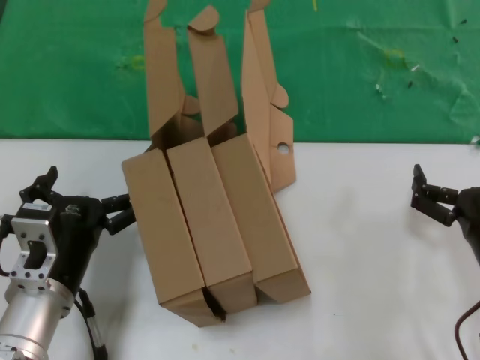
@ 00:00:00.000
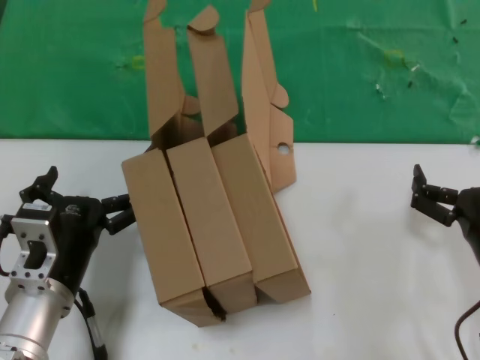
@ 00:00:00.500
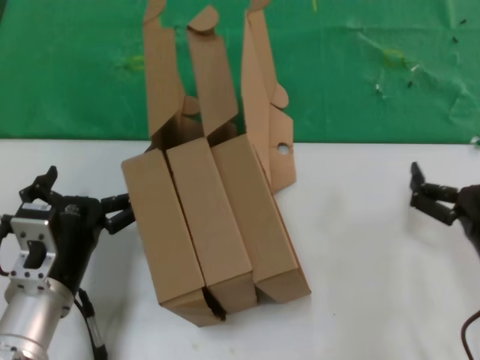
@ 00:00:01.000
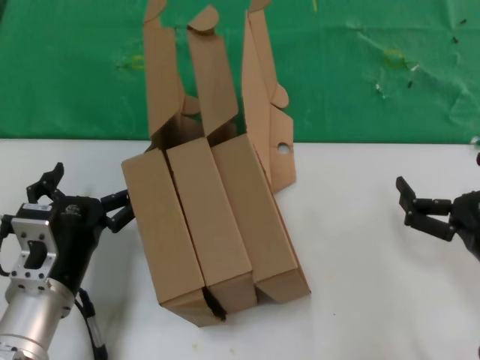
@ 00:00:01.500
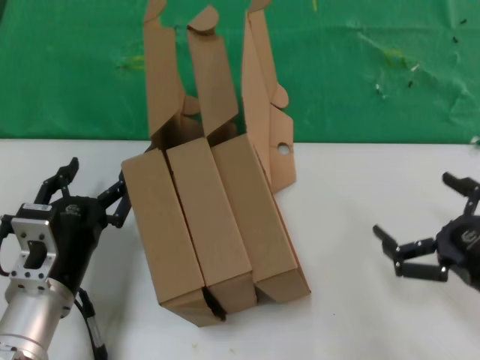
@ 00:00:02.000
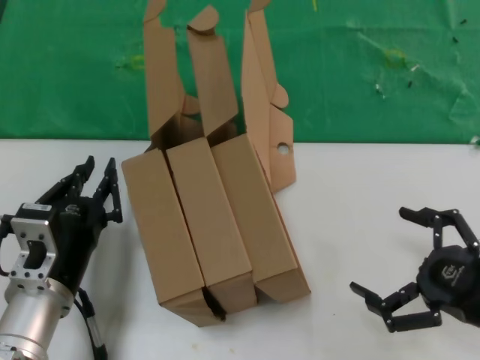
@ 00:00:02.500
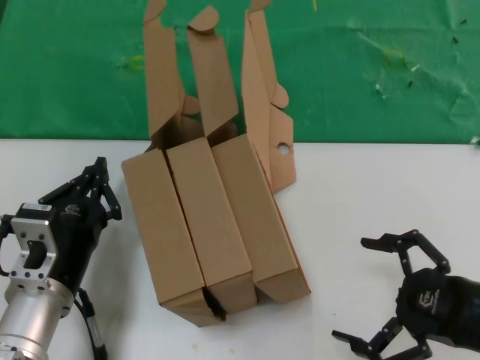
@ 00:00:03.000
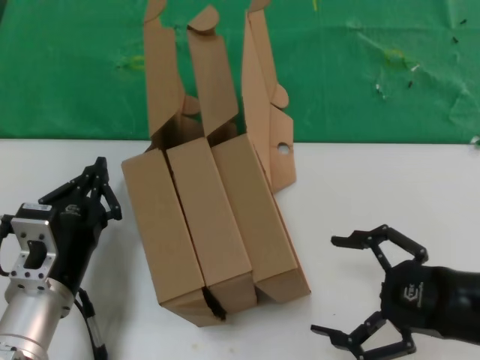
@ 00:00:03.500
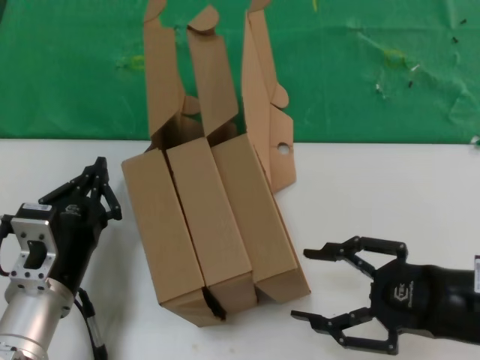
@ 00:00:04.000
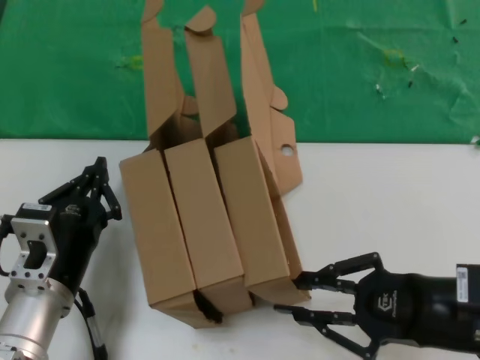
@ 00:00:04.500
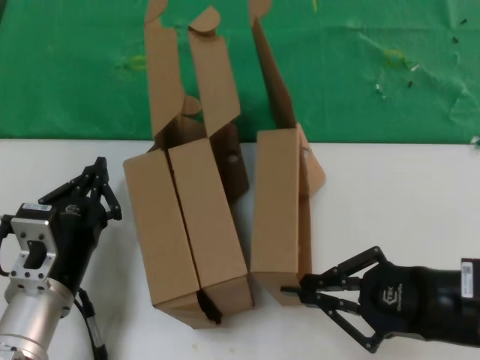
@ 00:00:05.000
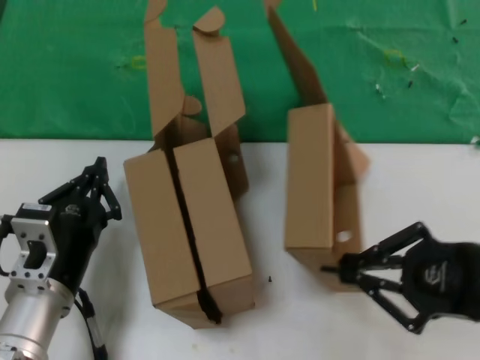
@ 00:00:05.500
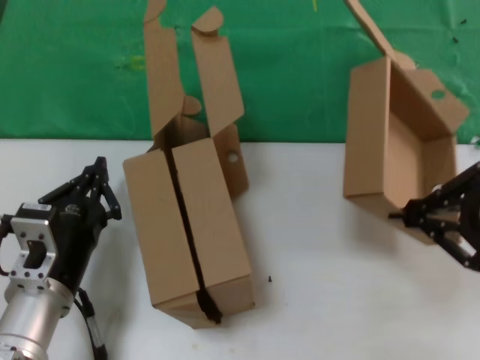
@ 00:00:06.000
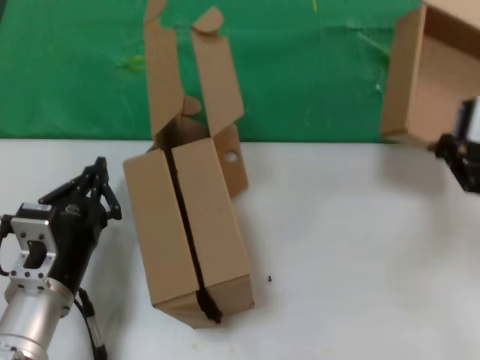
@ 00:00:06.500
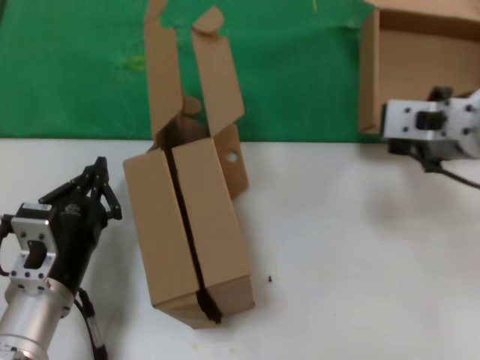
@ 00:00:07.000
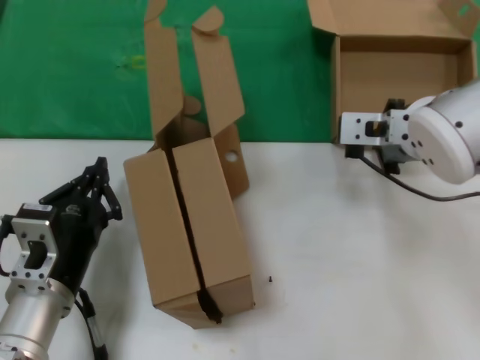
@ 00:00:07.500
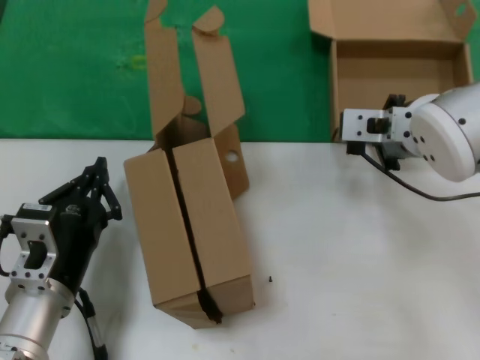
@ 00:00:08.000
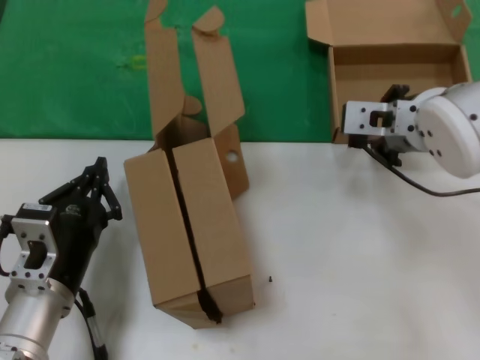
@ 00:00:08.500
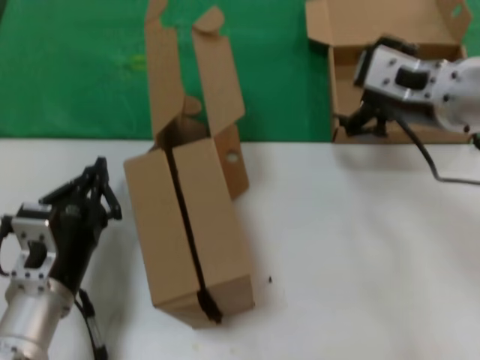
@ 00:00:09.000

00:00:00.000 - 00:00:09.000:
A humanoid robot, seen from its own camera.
Task of the whole recording: pick up the paper box and put it at the back.
Step, 00:00:00.000 - 00:00:04.500: Grasp the paper box.
Step, 00:00:05.000 - 00:00:08.000: Place the paper box on the table.
00:00:00.000 - 00:00:02.000: The right hand moves some 5 cm.
00:00:02.000 - 00:00:04.500: The right hand ends up roughly 5 cm from where it was.
00:00:04.500 - 00:00:07.000: The right hand moves upward, forward and to the left, roughly 20 cm.
00:00:07.000 - 00:00:09.000: The right hand moves about 10 cm forward and comes back.

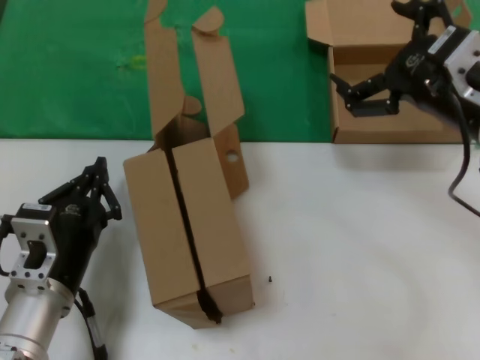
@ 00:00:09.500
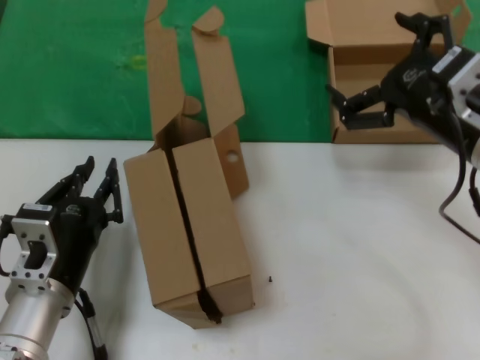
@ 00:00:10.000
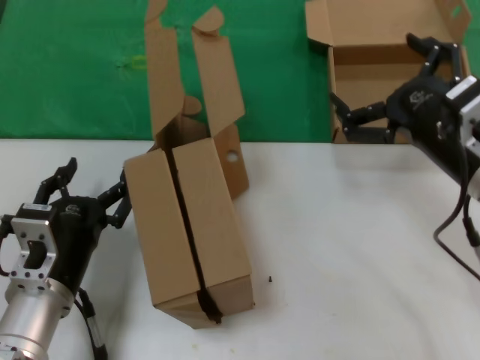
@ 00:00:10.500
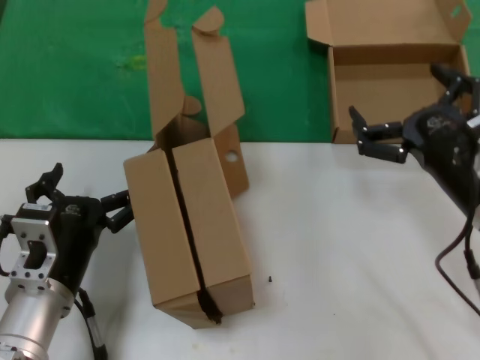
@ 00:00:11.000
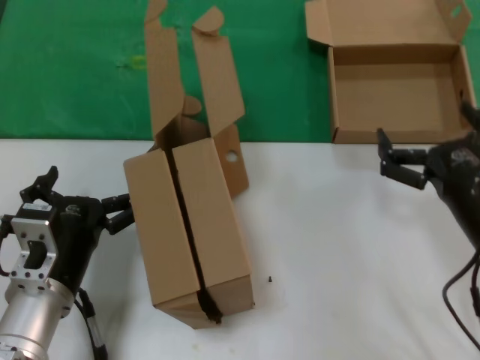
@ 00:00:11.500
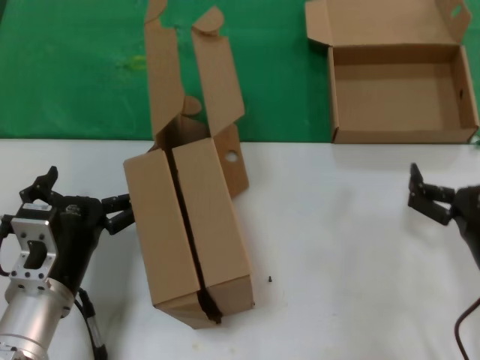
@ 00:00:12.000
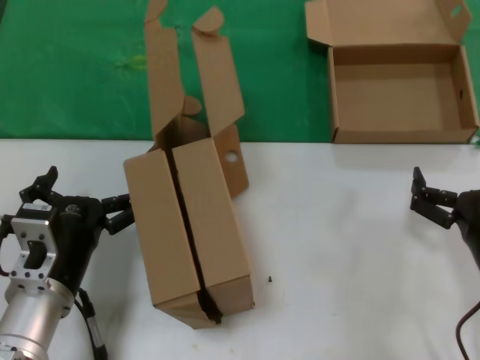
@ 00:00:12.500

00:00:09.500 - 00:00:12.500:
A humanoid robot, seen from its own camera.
Task of the whole recording: pick up the paper box and put it at the back.
00:00:09.500 - 00:00:11.000: The right hand heads downward, covering about 10 cm.
00:00:11.000 - 00:00:12.500: The right hand travels downward by approximately 10 cm.
